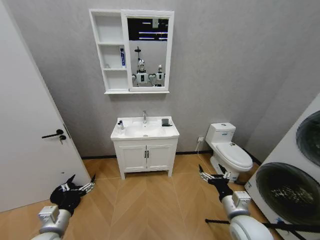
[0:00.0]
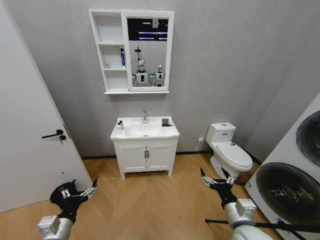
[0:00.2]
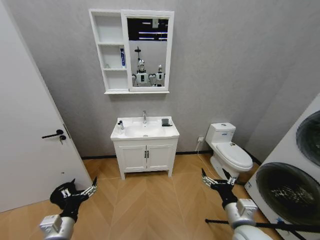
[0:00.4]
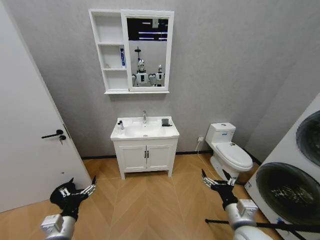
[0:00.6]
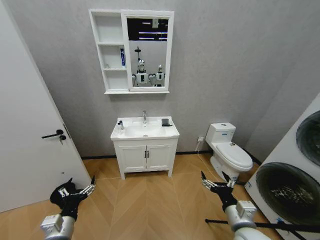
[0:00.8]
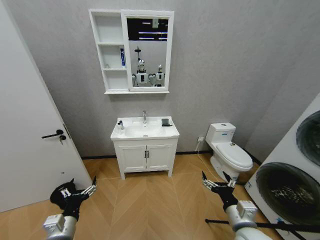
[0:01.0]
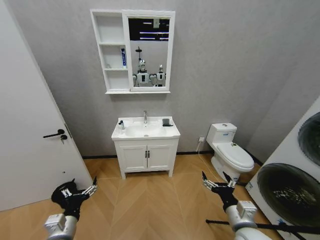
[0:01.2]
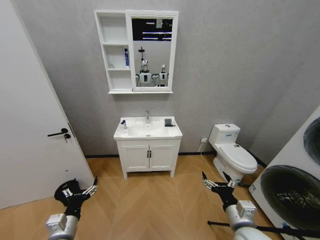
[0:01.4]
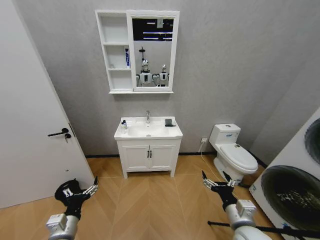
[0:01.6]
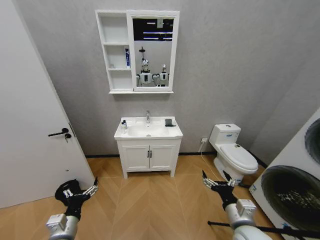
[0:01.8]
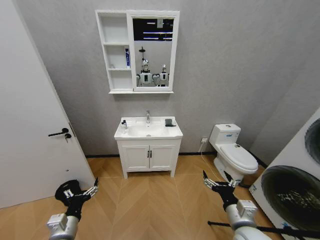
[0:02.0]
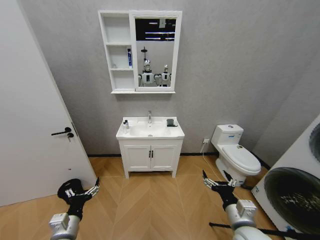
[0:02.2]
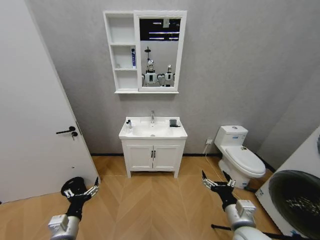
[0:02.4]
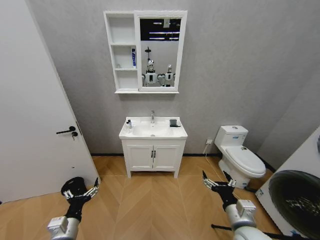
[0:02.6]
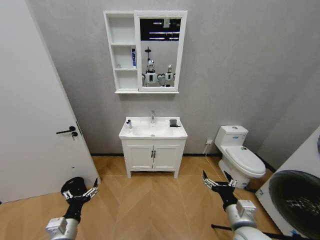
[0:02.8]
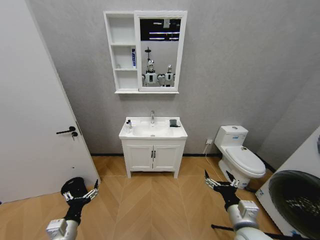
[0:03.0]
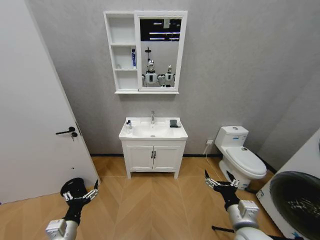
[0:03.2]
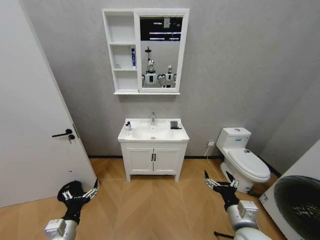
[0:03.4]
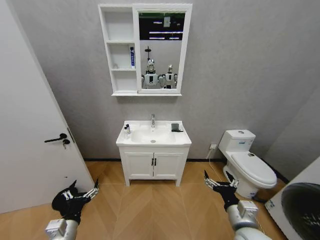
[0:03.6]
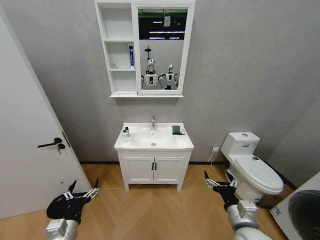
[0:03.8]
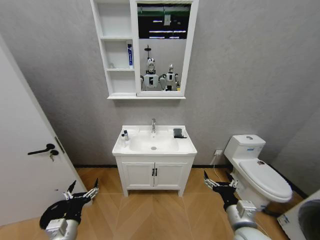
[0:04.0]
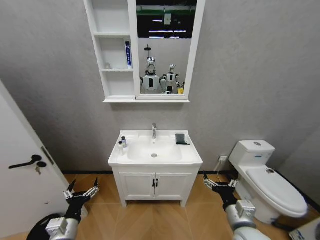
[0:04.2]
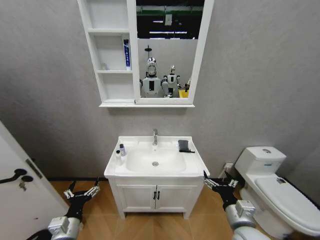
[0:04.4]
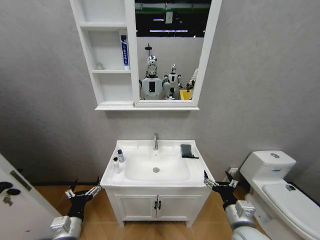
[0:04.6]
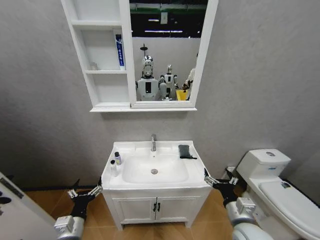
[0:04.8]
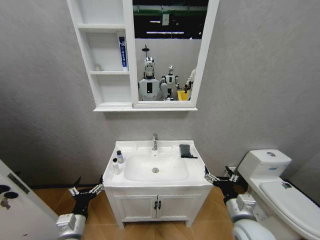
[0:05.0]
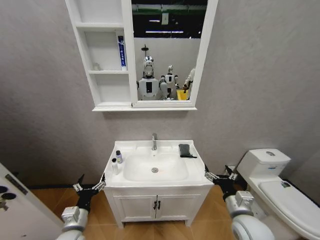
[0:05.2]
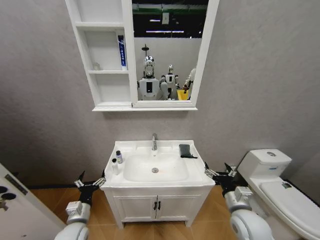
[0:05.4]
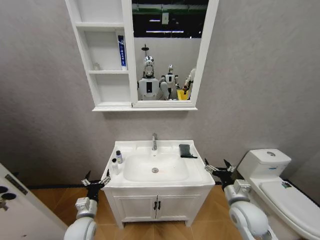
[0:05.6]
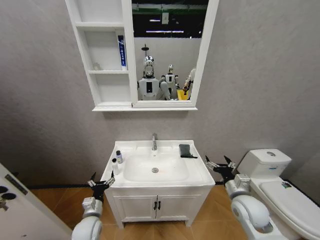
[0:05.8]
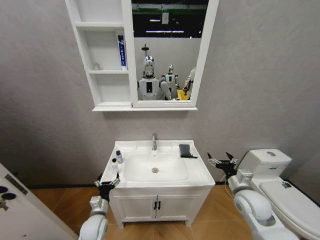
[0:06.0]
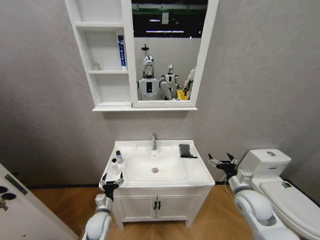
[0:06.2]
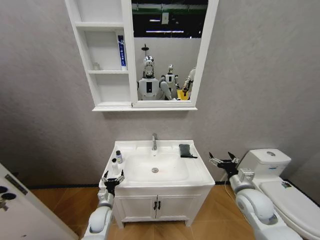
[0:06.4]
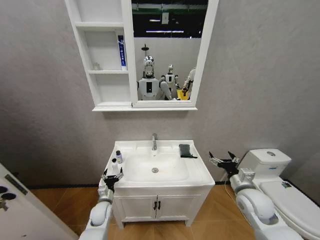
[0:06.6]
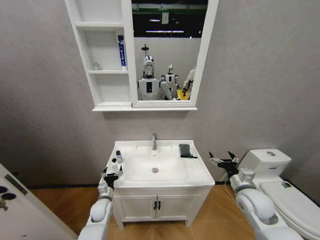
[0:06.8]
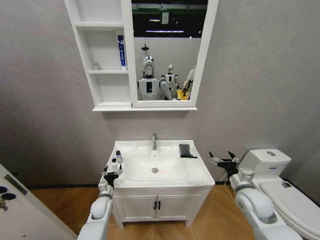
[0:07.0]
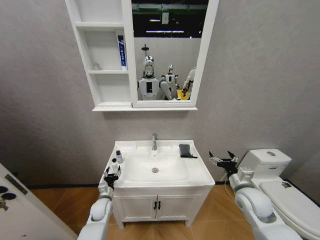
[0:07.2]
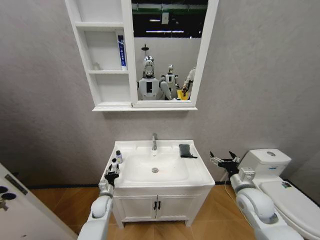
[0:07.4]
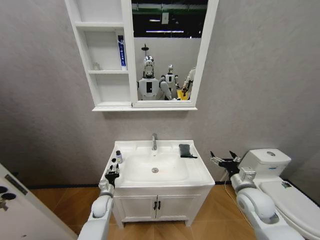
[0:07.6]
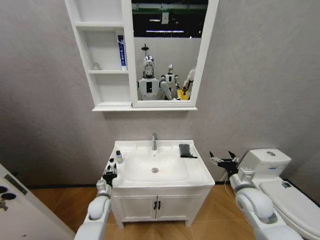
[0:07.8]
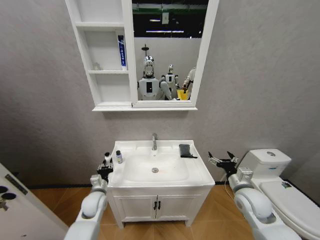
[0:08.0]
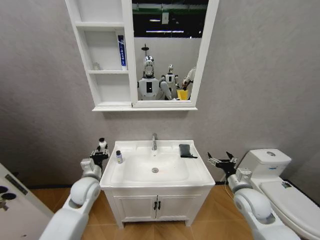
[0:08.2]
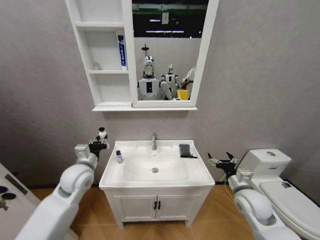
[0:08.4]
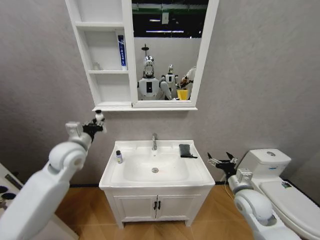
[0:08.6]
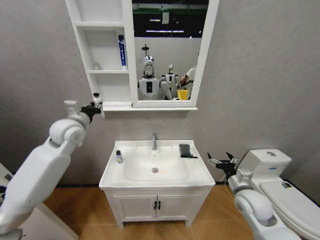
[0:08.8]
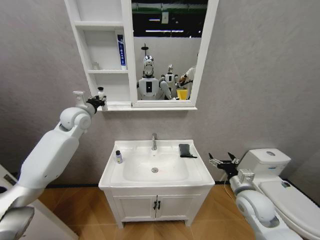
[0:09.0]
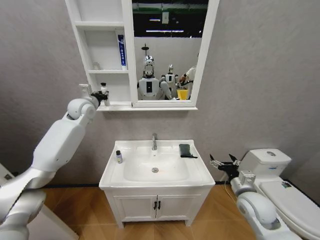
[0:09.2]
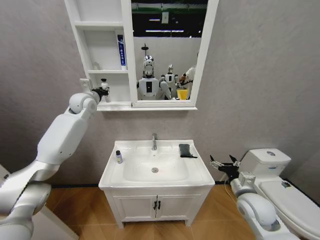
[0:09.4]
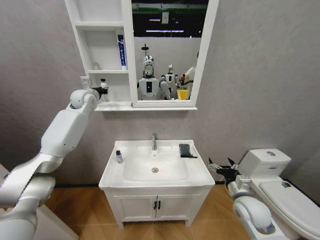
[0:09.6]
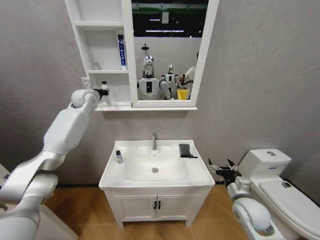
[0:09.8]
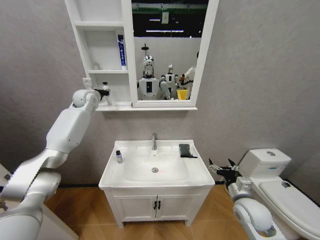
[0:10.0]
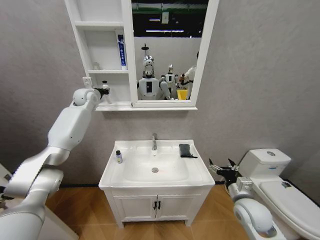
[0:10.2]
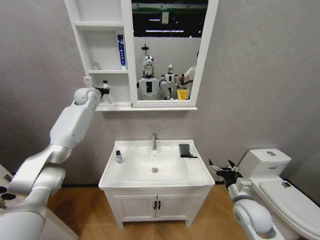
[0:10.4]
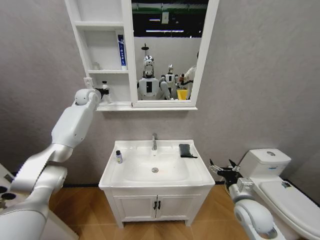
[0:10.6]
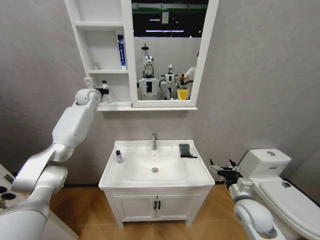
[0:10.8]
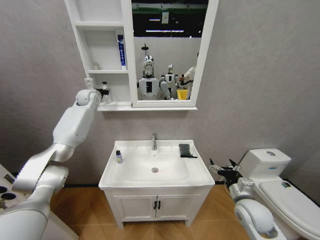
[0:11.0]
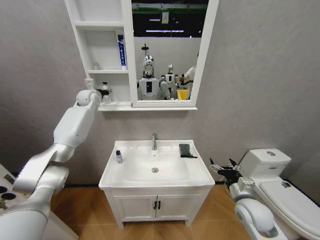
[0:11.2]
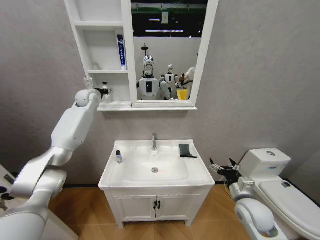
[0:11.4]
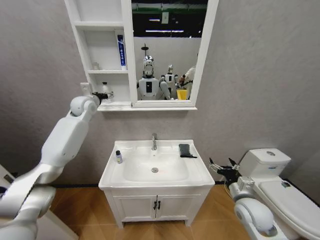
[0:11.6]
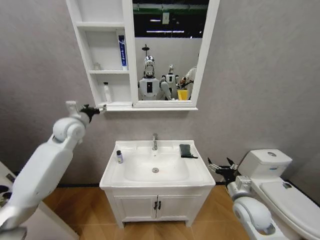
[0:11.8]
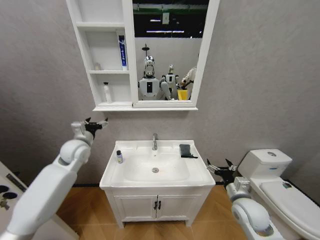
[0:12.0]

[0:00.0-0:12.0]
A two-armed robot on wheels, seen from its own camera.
Task of the whole recording: Move facial cleanser and shampoo from washbasin to cabinet, then wipe washbasin with towel.
0:01.6 to 0:03.0: Both grippers stay about where they are.
0:04.4 to 0:06.0: The left gripper goes some 15 cm forward and downward, while the right gripper is displaced forward and to the right by approximately 10 cm.
0:06.0 to 0:07.6: The left gripper goes roughly 10 cm forward, and closes.
0:07.6 to 0:09.0: The left gripper is displaced upward by roughly 40 cm.
0:09.0 to 0:10.4: The left gripper moves forward, about 15 cm.
0:10.4 to 0:12.0: The left gripper heads backward and downward, covering roughly 25 cm, and opens its fingers.

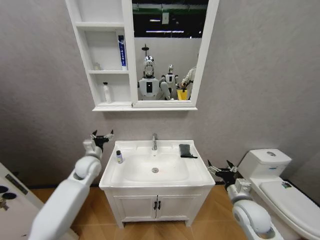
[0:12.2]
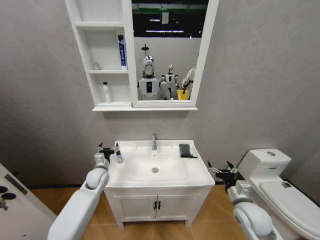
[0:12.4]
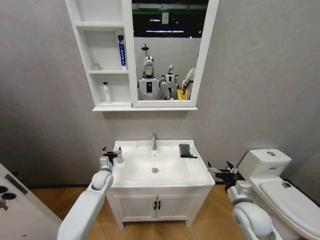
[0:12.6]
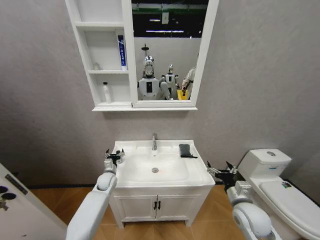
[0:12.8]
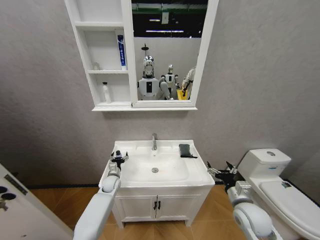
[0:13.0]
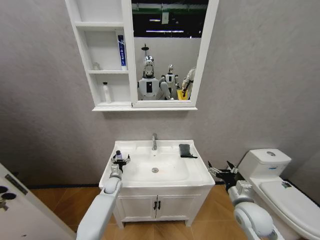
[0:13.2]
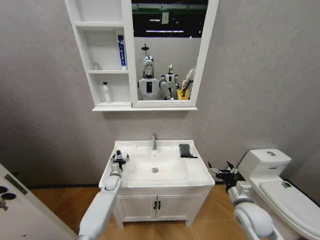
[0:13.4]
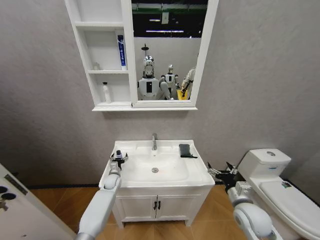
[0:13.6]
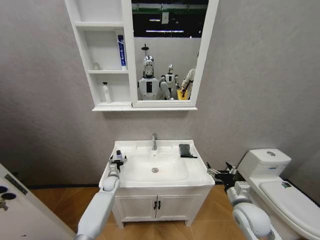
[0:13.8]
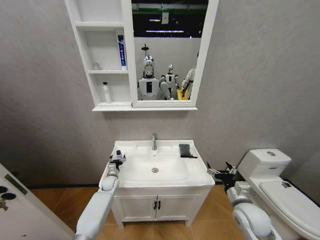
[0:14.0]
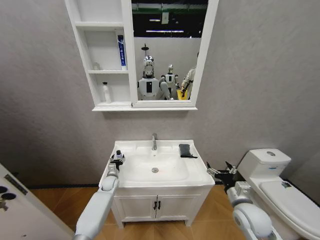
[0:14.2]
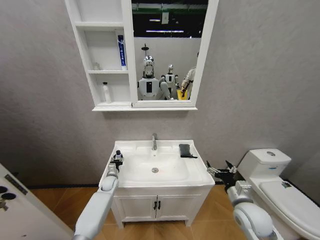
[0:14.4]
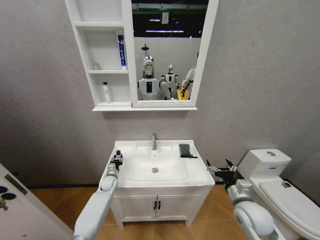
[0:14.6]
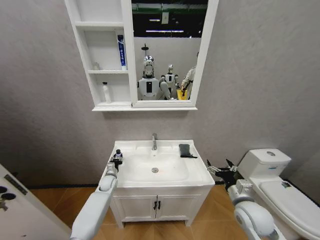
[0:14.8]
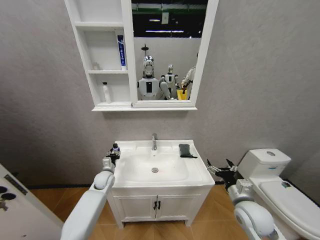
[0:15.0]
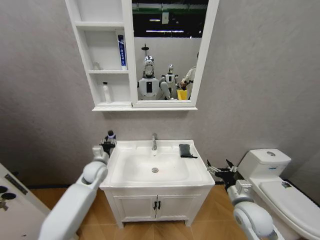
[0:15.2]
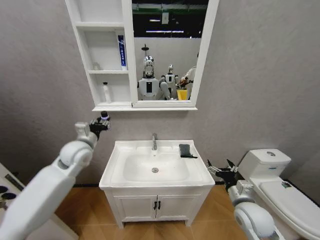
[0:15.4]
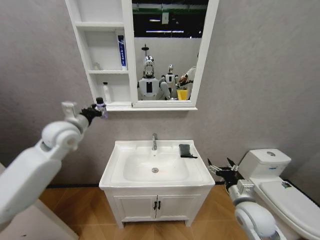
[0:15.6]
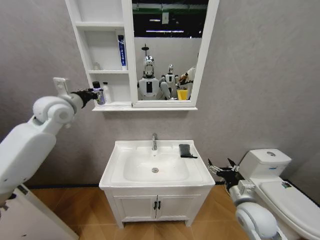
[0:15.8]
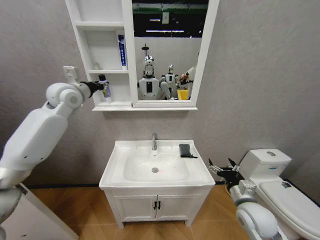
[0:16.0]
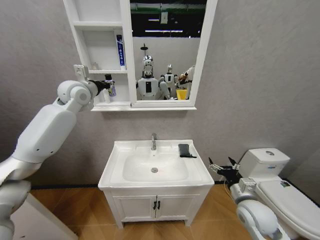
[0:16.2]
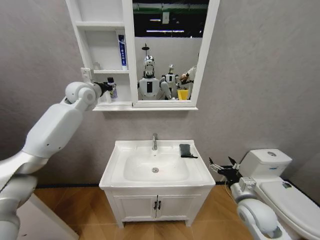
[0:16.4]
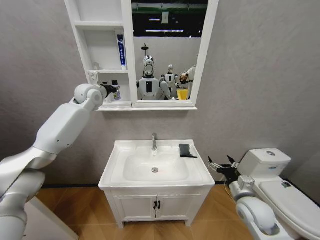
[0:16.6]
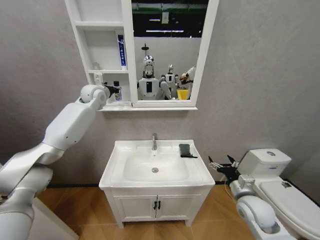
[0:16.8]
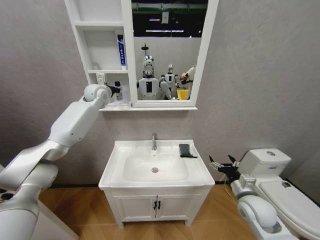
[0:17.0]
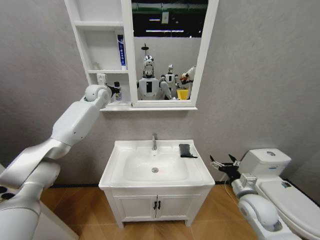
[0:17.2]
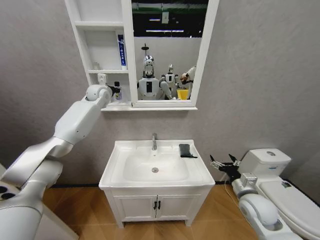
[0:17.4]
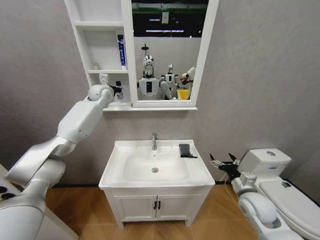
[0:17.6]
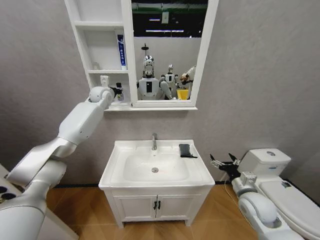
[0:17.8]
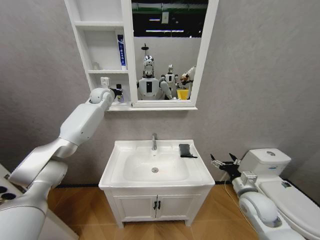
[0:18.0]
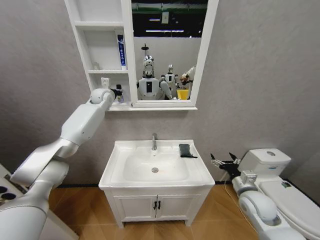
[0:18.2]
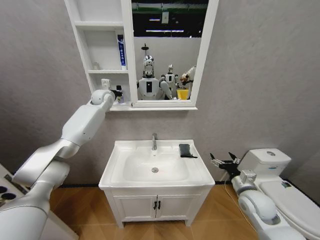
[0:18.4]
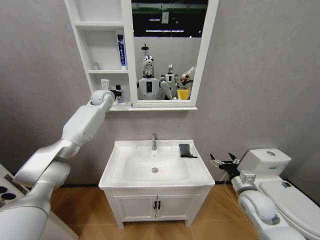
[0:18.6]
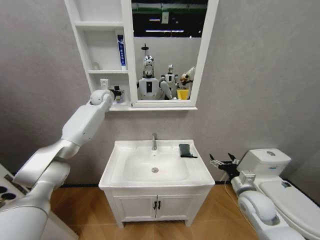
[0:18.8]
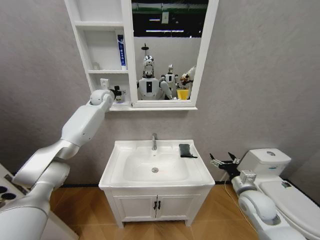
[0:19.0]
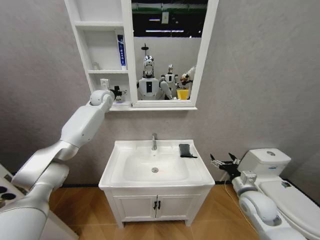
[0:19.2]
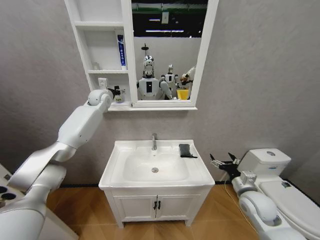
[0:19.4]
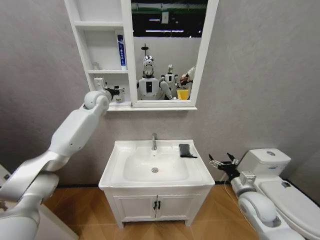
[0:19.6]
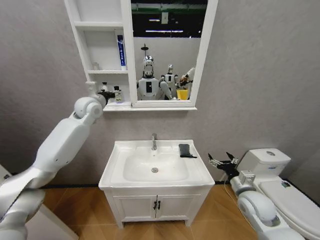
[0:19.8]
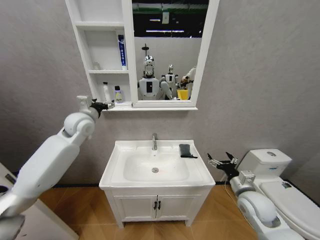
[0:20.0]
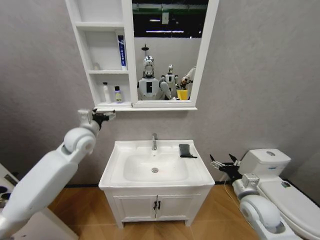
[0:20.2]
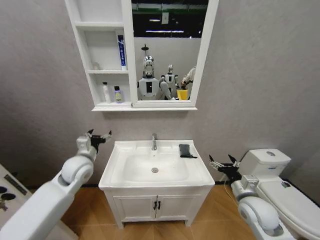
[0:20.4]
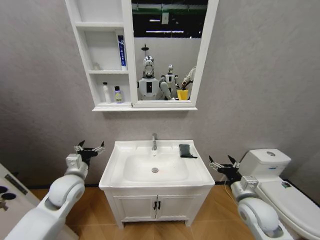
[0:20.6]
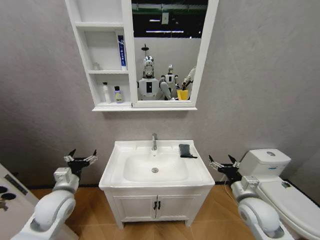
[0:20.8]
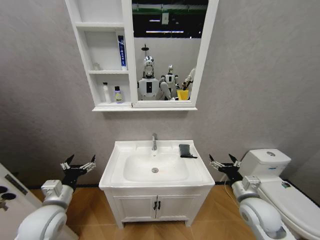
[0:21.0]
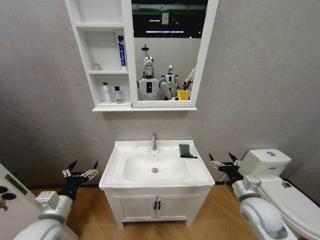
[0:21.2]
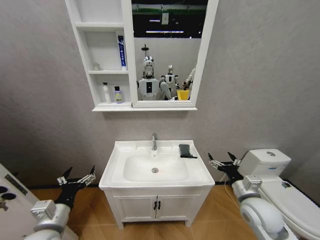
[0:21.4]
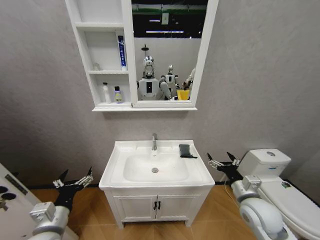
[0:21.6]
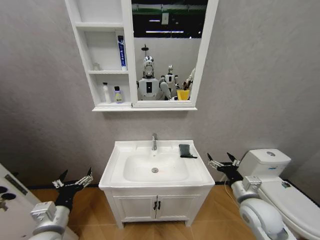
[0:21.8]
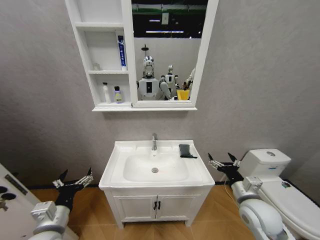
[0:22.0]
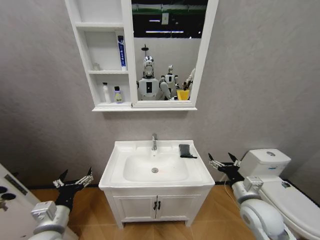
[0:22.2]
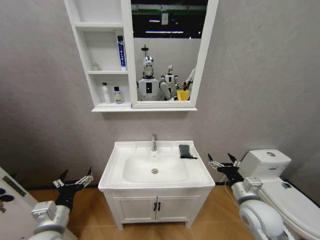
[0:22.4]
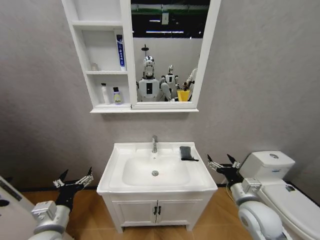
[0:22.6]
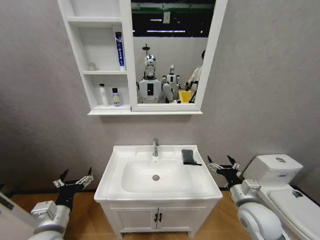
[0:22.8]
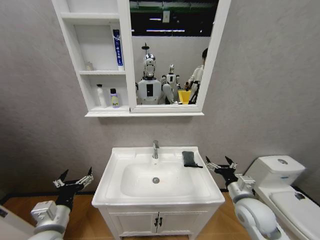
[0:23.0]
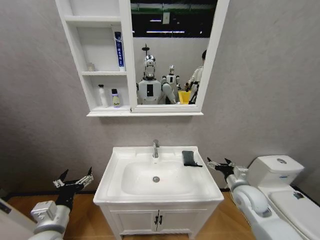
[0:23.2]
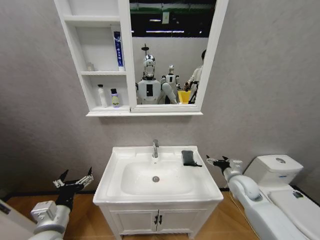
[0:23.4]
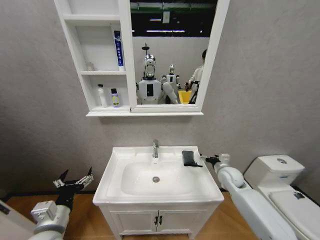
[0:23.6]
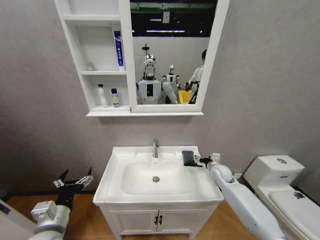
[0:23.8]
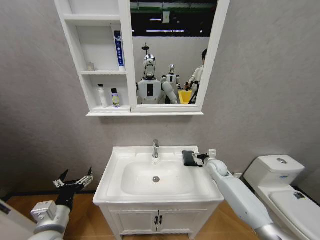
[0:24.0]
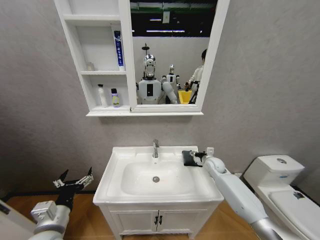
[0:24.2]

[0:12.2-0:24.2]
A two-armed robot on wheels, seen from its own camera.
Task of the whole recording: Move facial cleanser and shampoo from washbasin to cabinet, then wipe washbasin with towel.
0:12.2 to 0:13.8: The left gripper travels downward by roughly 20 cm.
0:13.8 to 0:15.2: The left gripper travels upward by some 20 cm, and closes.
0:15.2 to 0:16.6: The left gripper goes about 35 cm upward and forward.
0:16.6 to 0:18.2: The left gripper heads forward, covering some 5 cm.
0:18.2 to 0:19.8: The left gripper is displaced backward by about 10 cm, and opens.
0:19.8 to 0:21.2: The left gripper goes roughly 40 cm backward and downward.
0:21.2 to 0:22.6: The grippers make only small movements.
0:22.6 to 0:24.2: The right gripper shifts about 25 cm forward.
